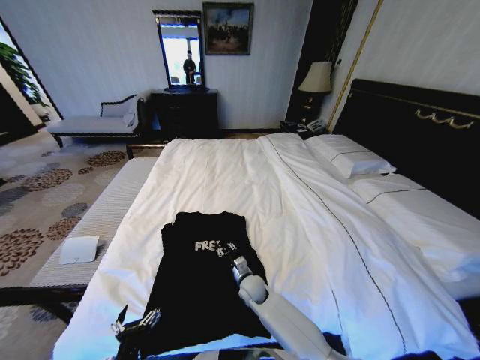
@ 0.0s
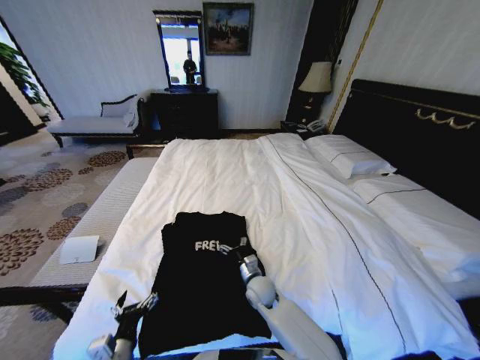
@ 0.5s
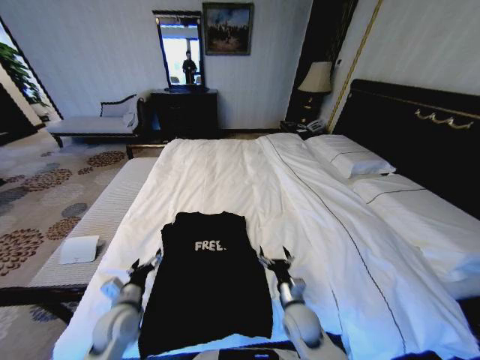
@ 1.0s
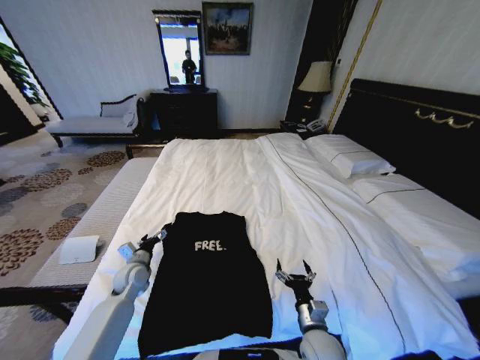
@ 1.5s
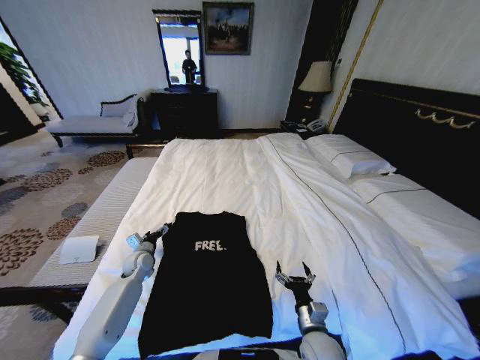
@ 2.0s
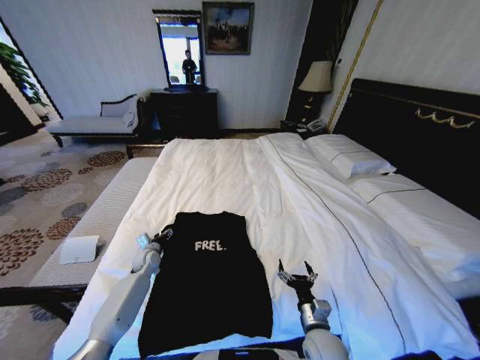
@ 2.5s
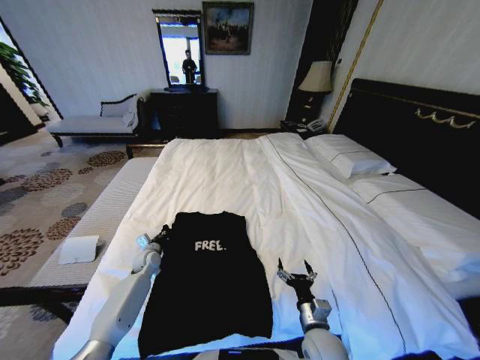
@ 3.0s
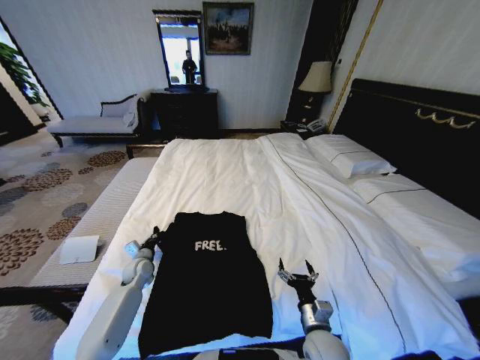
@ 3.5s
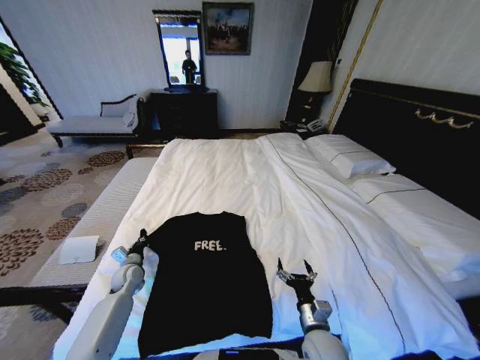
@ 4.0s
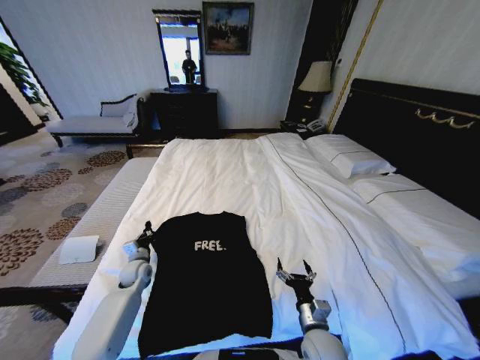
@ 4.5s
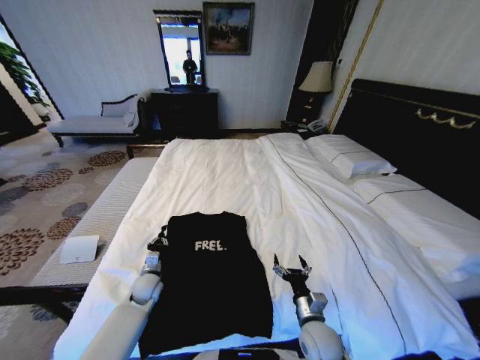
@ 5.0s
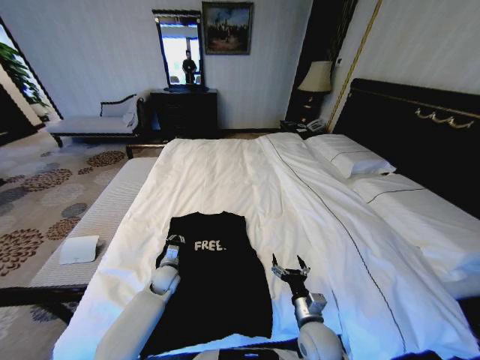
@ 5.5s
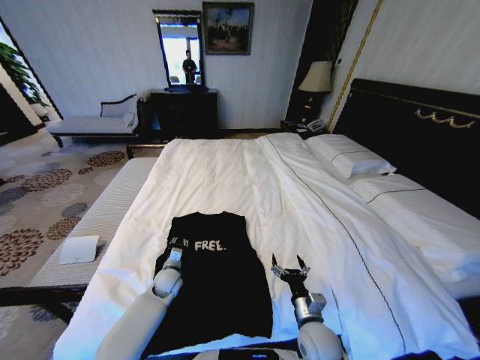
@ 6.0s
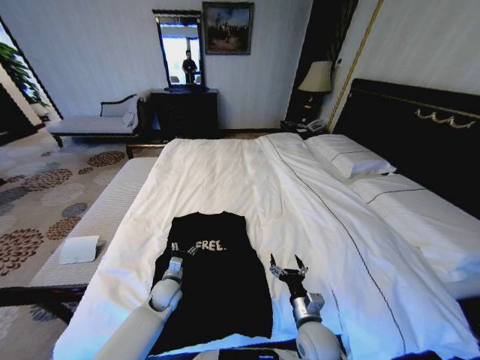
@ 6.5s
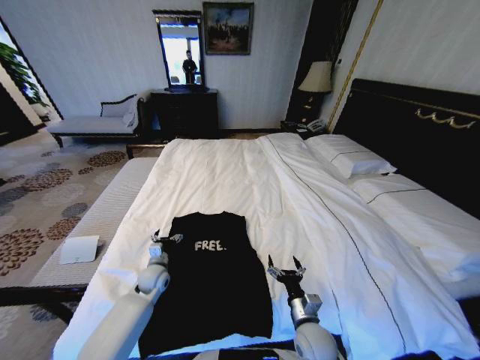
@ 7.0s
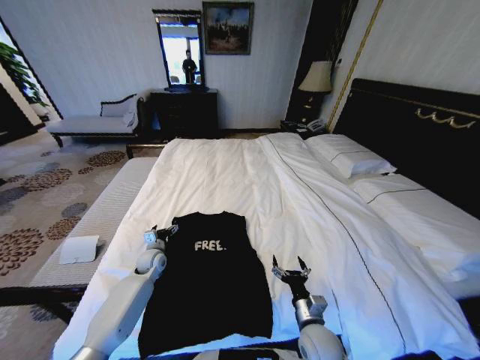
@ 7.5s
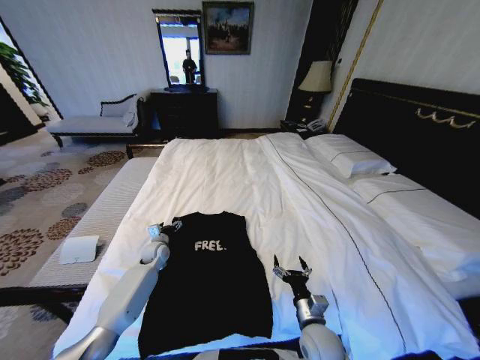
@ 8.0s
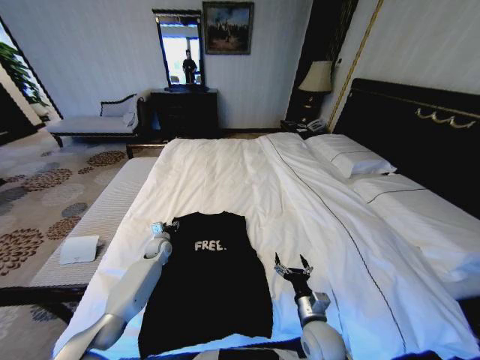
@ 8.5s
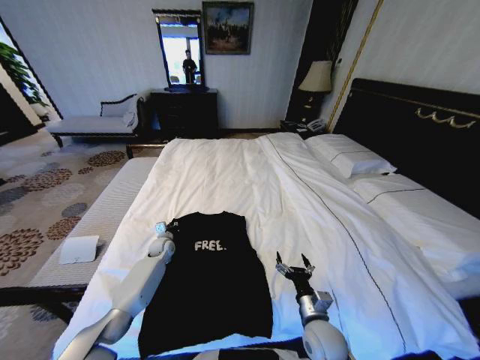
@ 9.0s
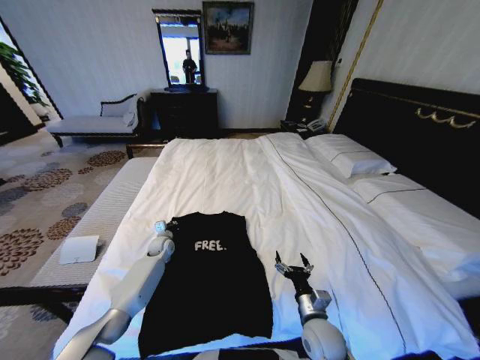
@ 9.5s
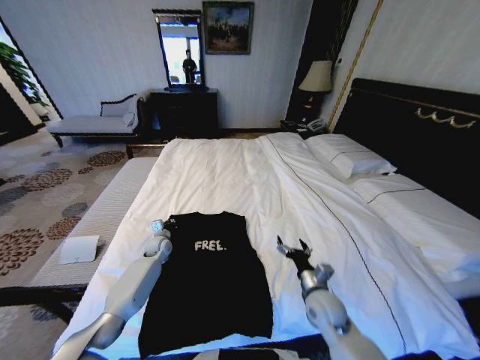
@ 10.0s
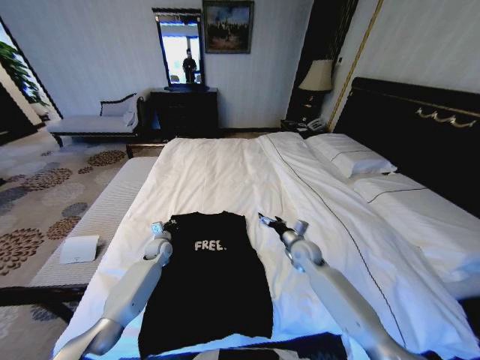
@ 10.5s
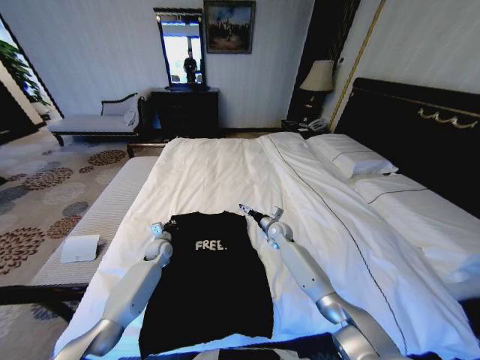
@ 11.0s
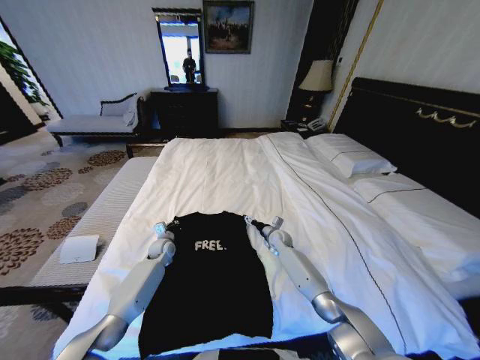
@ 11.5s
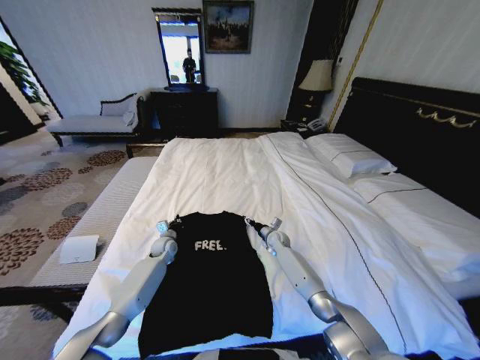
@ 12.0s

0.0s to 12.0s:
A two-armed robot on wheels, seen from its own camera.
Task of the whole recording: Fold the clothes on the bed.
0.0s to 2.0s: The left gripper is displaced forward by some 35 cm. Meanwhile the right gripper travels backward and to the right by approximately 25 cm, and opens up.
2.0s to 4.0s: The left gripper moves roughly 5 cm, and closes its fingers.
4.0s to 6.0s: The left gripper travels to the right by approximately 15 cm.
6.0s to 8.0s: The left gripper goes roughly 10 cm forward and to the left, and opens.
8.0s to 10.0s: The right gripper goes about 5 cm forward, while the left gripper closes its fingers.
10.0s to 12.0s: The right gripper heads forward, covering about 25 cm, and closes its fingers.

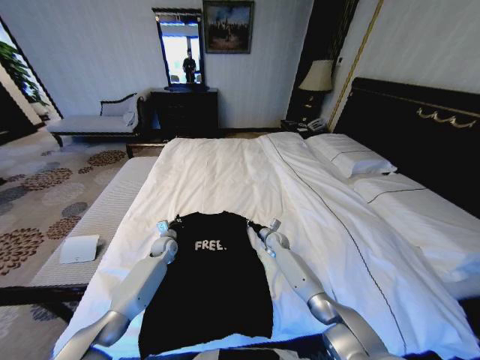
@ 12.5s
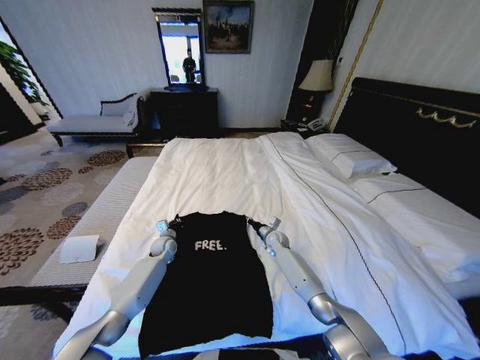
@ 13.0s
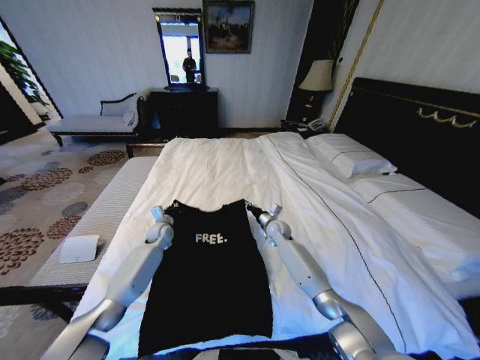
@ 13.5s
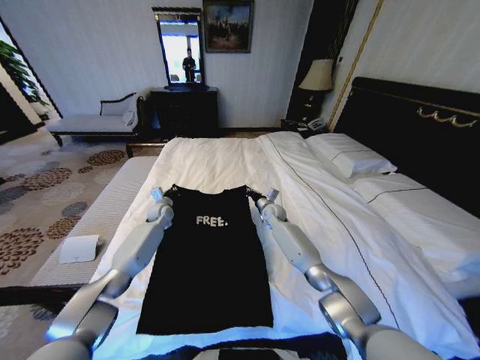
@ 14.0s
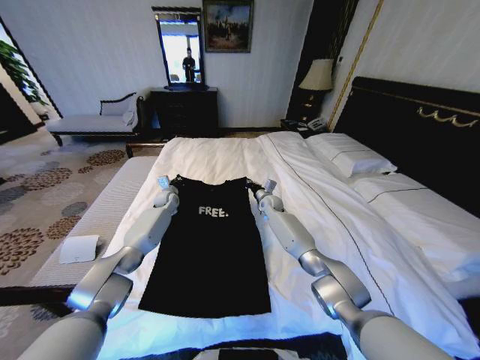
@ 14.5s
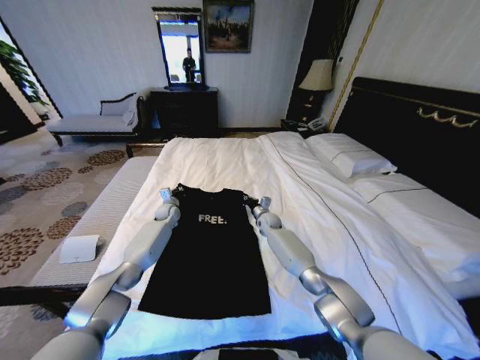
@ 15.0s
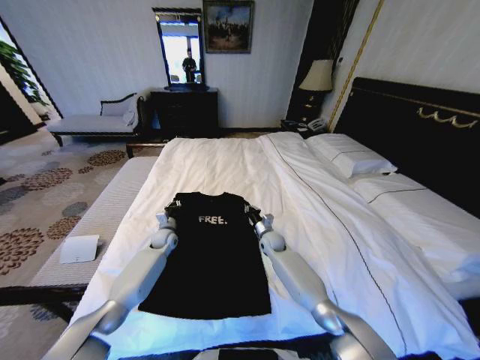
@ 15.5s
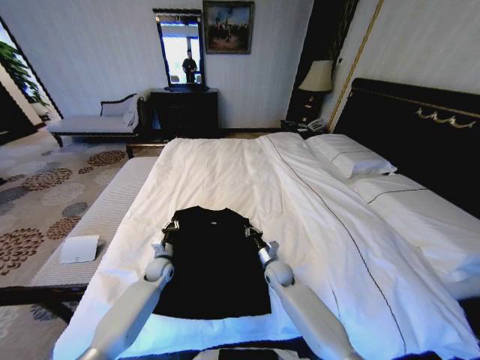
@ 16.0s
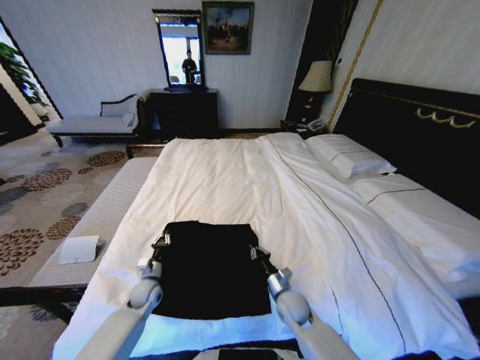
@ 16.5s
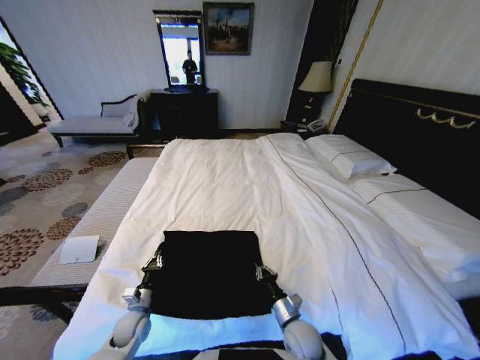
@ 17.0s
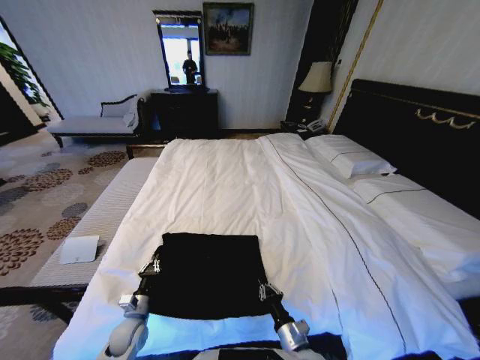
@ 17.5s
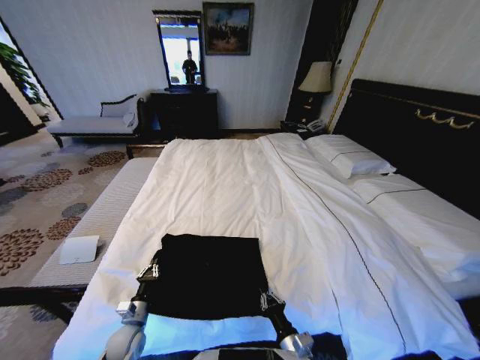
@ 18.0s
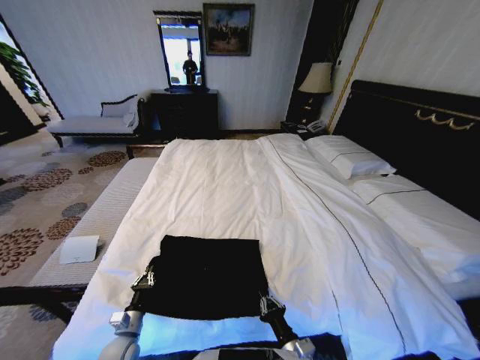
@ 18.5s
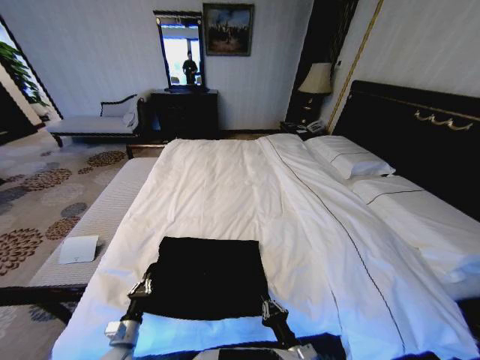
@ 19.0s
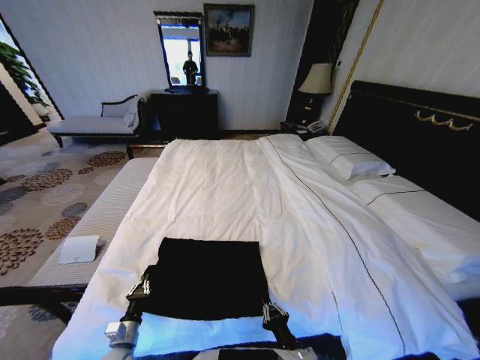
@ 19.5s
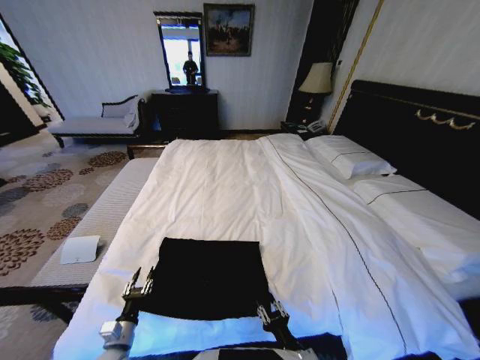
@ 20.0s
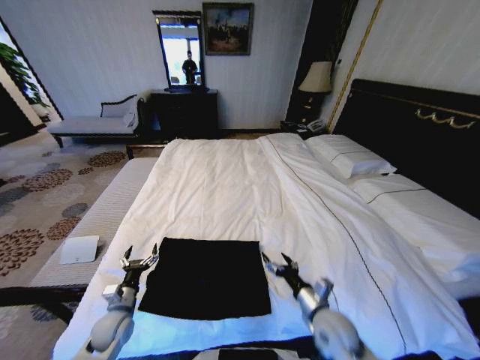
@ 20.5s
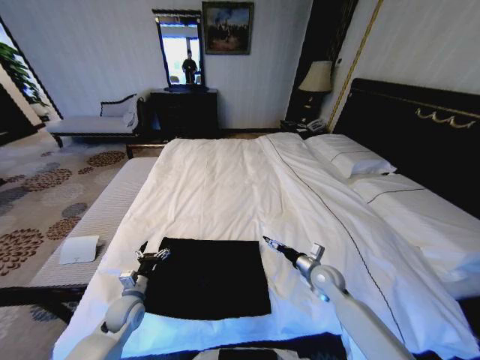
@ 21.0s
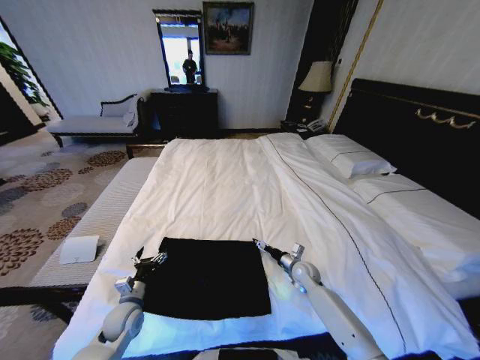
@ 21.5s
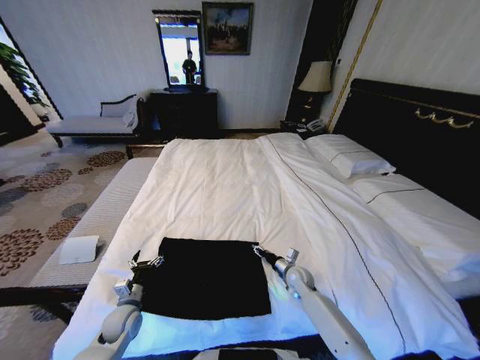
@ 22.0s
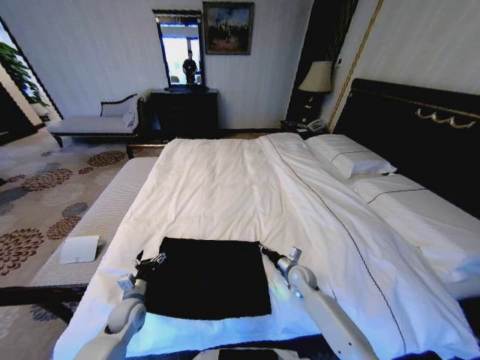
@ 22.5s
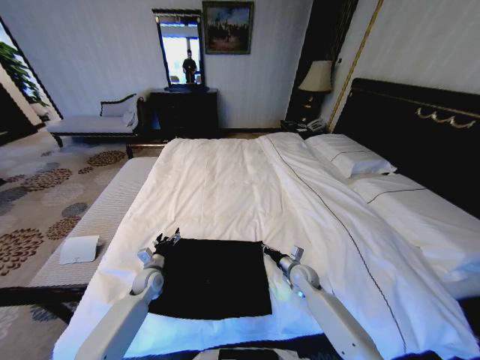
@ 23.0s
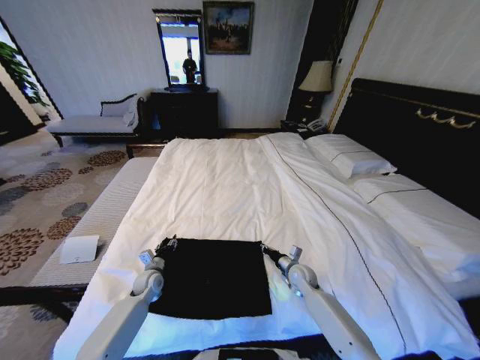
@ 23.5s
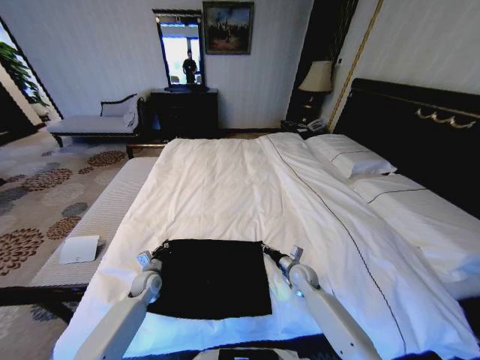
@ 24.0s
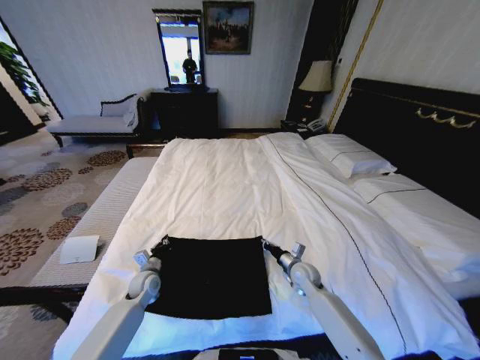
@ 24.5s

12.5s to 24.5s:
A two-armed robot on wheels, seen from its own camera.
Task of the whole recording: Fold the clothes on the bed.
12.5s to 14.5s: The right gripper moves upward and forward, some 15 cm; the left gripper moves forward and upward, approximately 20 cm.
14.5s to 16.5s: The right gripper goes roughly 35 cm backward. The left gripper shifts some 35 cm backward and downward.
16.5s to 18.5s: The two grippers go roughly 15 cm backward.
18.5s to 20.5s: The left gripper shifts about 10 cm upward and forward, and opens its fingers, while the right gripper shifts approximately 15 cm forward, to the right and upward, and opens.
20.5s to 22.5s: The right gripper heads forward and downward, covering roughly 20 cm, and closes up.
22.5s to 24.5s: The left gripper heads forward, covering roughly 10 cm, and closes its fingers.

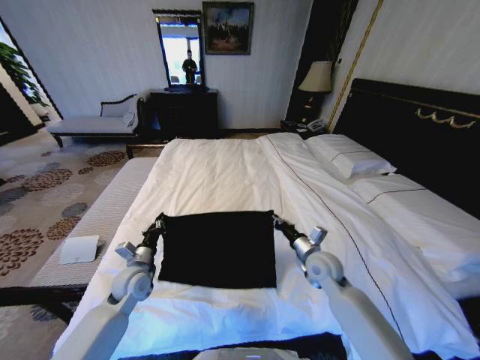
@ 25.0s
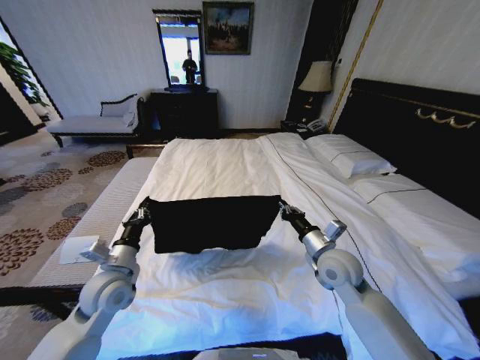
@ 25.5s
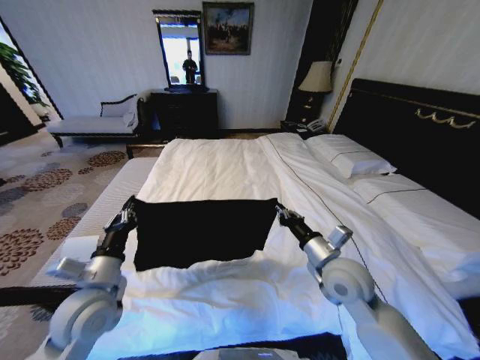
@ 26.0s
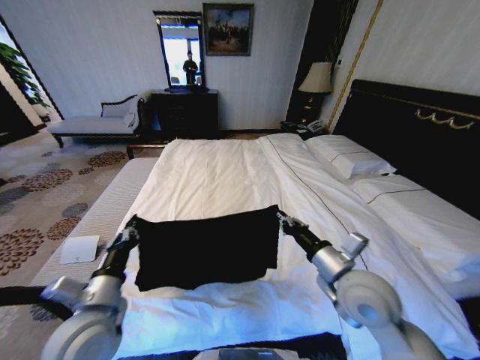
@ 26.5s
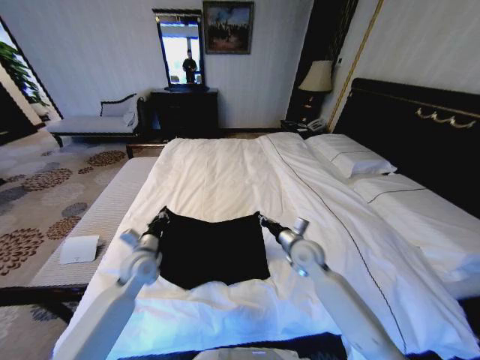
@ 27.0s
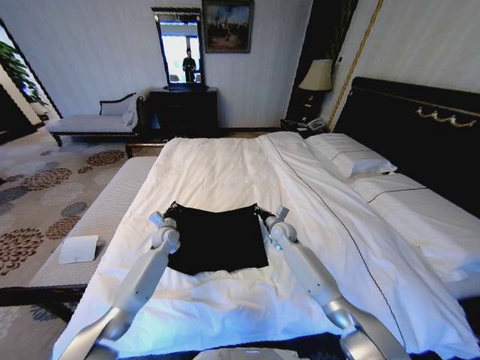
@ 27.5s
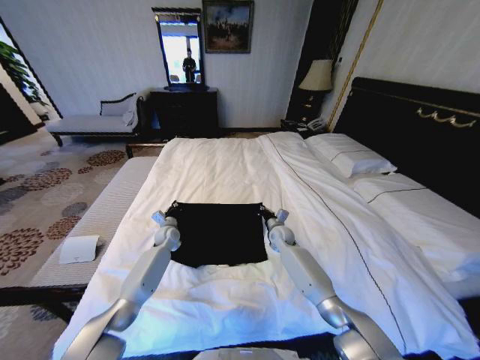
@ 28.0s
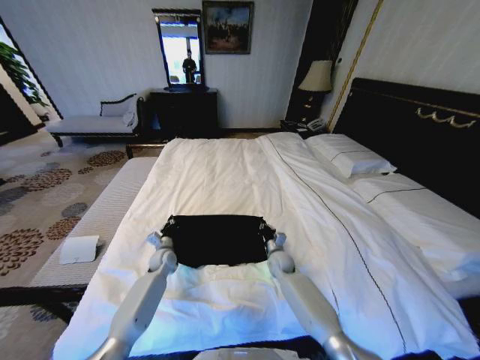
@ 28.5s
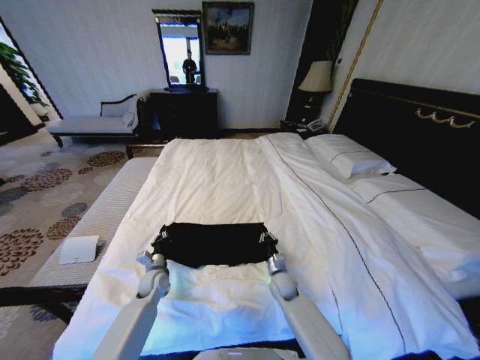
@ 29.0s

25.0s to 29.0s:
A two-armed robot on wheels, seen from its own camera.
Task of the whole recording: Fold the clothes on the bed.
25.0s to 27.0s: The right gripper travels backward and back again, some 10 cm each way. Meanwhile the left gripper reaches approximately 15 cm backward, then returns.
27.0s to 29.0s: The grippers both shift downward by approximately 15 cm. The left gripper moves some 15 cm forward and comes back.
